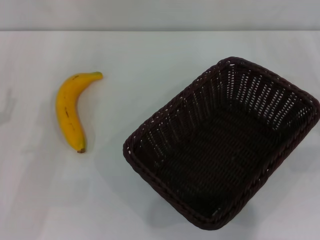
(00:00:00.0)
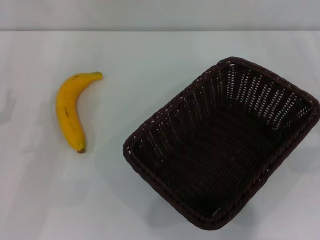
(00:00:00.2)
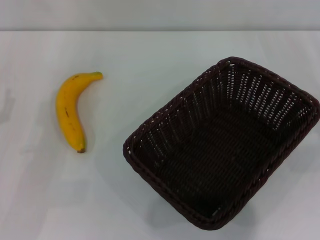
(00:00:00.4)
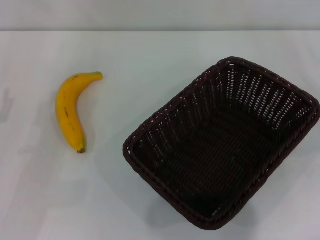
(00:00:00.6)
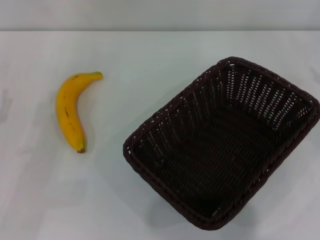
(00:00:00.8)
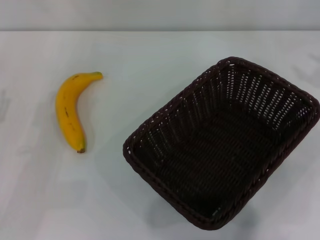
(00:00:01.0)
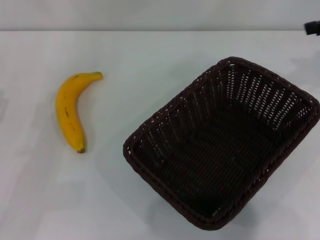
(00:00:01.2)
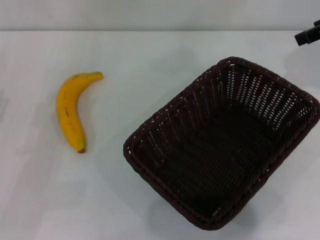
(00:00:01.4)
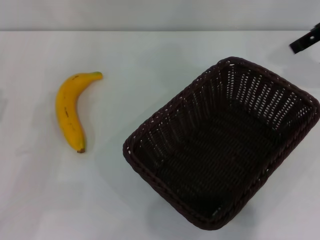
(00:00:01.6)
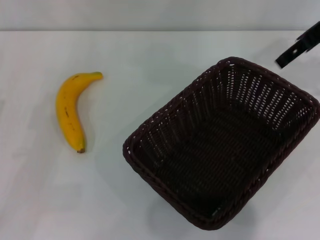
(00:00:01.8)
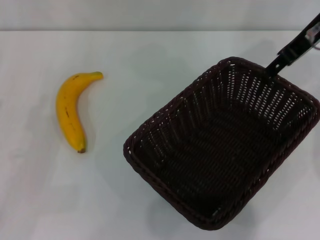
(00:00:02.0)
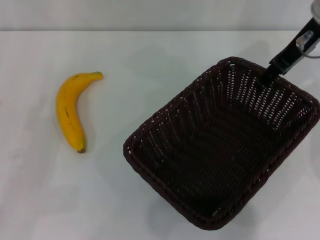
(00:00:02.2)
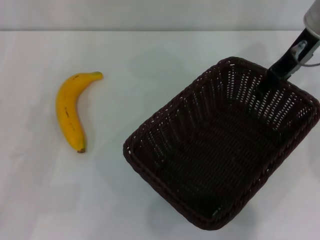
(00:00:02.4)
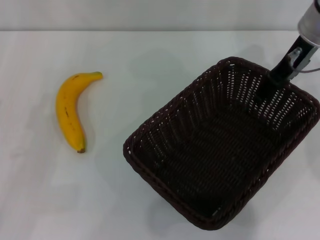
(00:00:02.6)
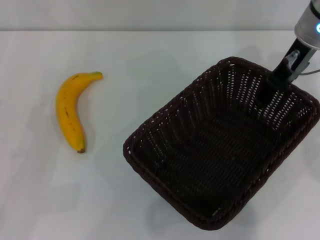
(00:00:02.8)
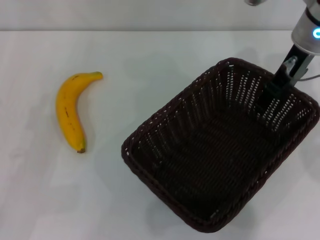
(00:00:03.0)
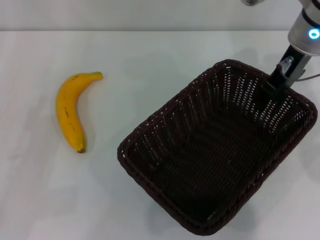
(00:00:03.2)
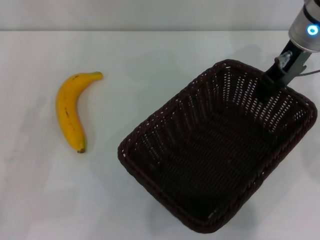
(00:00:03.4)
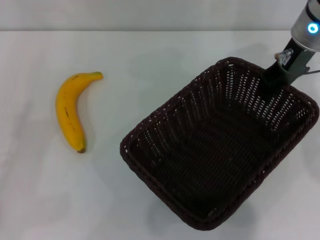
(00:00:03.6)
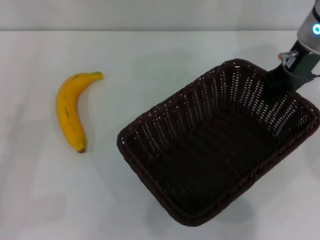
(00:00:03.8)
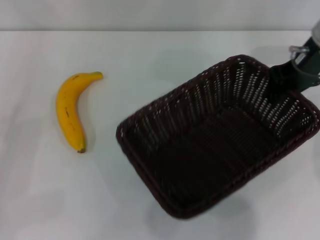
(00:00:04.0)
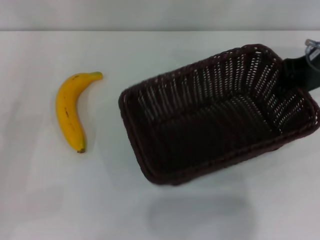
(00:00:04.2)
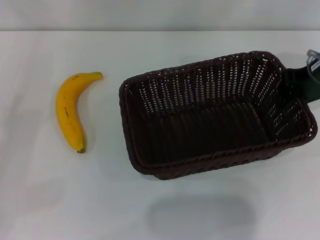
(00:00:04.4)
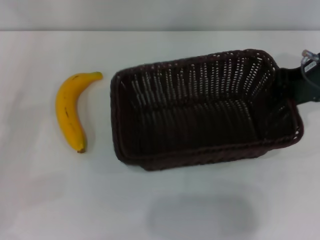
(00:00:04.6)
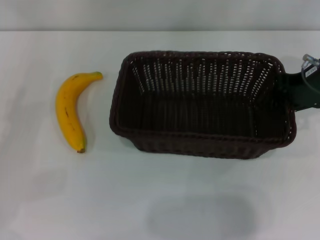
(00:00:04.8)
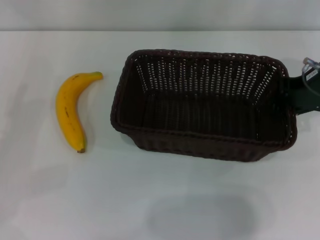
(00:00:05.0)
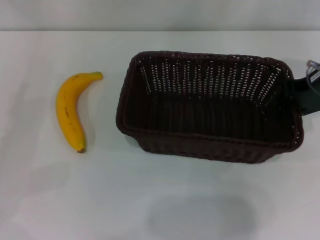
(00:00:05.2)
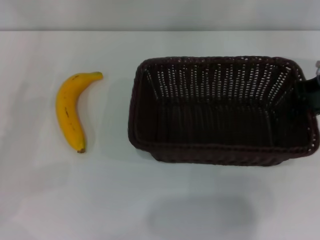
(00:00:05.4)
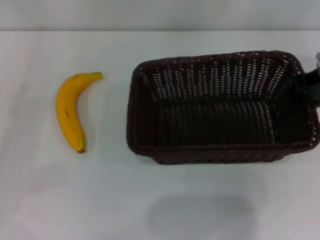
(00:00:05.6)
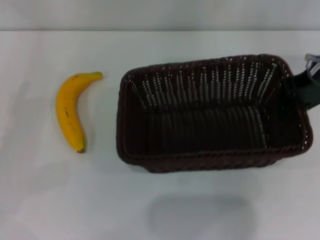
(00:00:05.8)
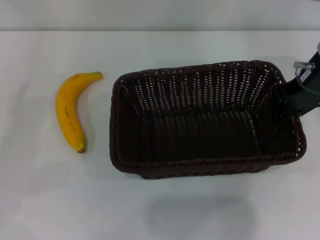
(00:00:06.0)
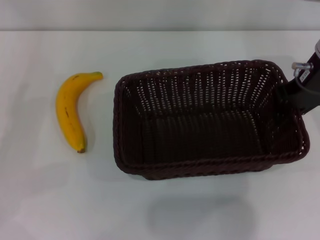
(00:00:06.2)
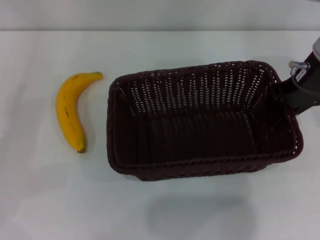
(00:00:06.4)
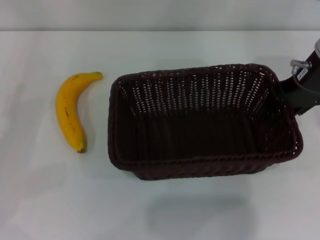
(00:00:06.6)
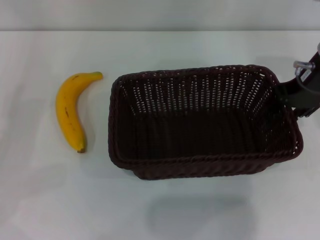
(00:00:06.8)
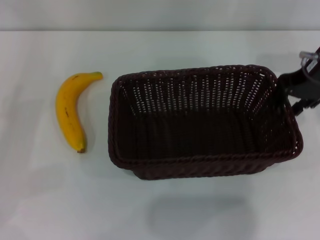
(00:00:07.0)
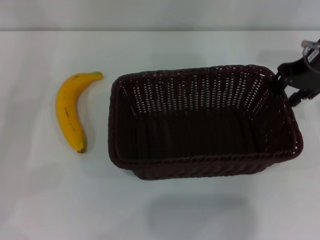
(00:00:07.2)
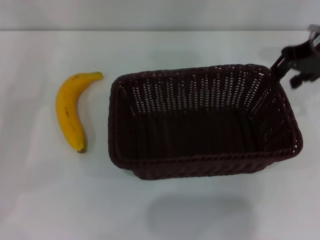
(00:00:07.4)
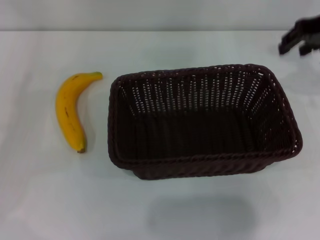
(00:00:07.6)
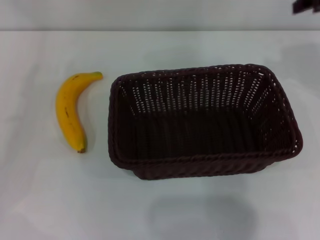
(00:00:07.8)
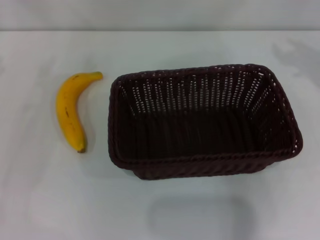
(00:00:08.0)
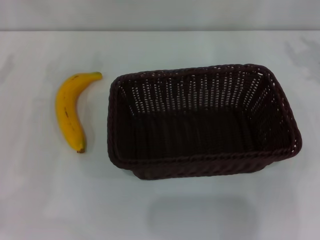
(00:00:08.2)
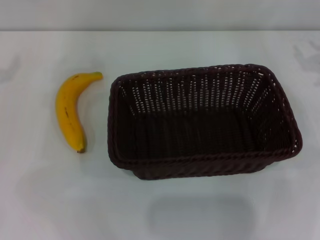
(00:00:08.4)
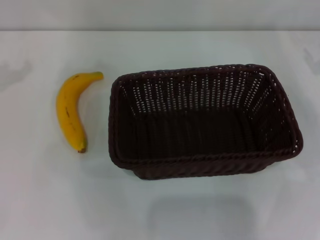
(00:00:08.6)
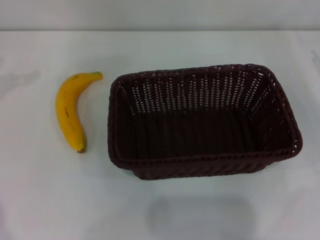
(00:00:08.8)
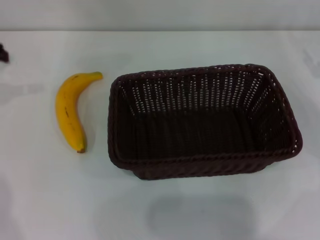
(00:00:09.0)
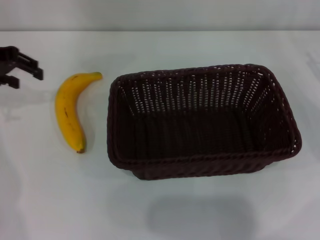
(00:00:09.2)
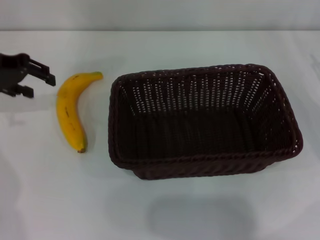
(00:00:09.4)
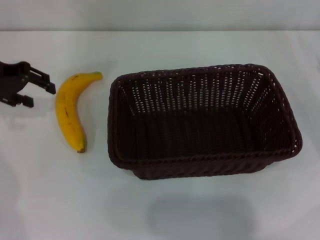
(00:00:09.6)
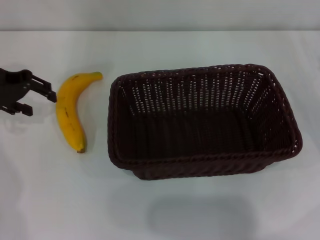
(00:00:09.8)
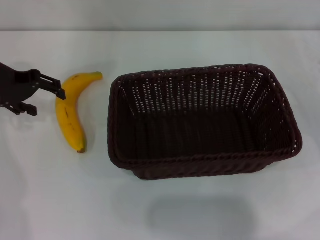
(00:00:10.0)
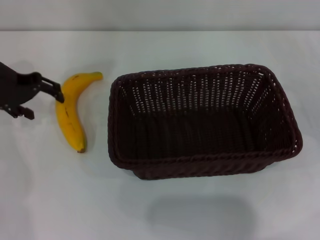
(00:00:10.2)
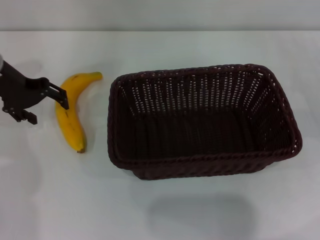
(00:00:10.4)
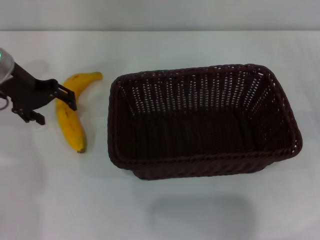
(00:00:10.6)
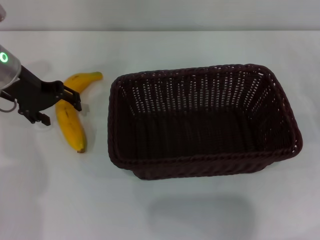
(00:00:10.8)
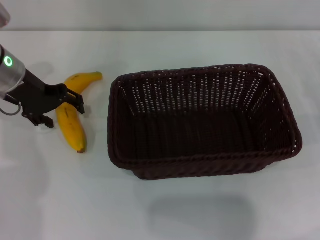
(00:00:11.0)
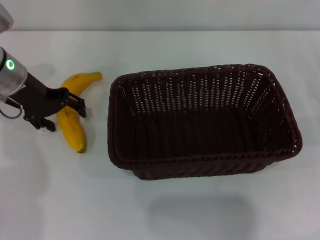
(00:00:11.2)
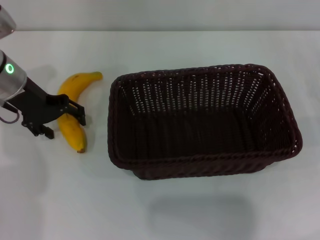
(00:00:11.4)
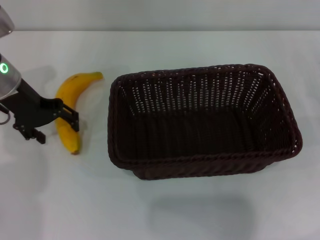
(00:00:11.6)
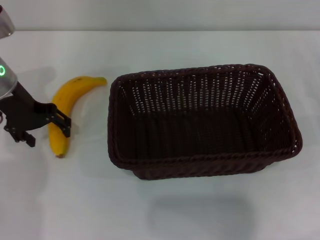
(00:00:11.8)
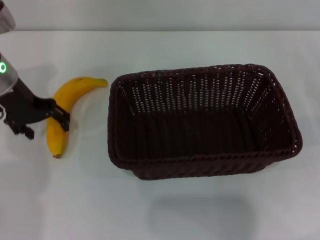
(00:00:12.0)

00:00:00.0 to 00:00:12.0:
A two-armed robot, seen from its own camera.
Step, 00:00:00.0 to 00:00:04.0: Pick up the dark basket with the right gripper.
Step, 00:00:04.2 to 00:00:06.8: Place the dark basket in the center of view with the right gripper.
00:00:00.0 to 00:00:01.6: The right gripper is displaced upward, forward and to the left by roughly 30 cm.
00:00:01.6 to 00:00:03.0: The right gripper moves to the left and downward, some 10 cm.
00:00:03.0 to 00:00:04.4: The right gripper goes about 5 cm to the right, and closes its fingers. The left gripper goes about 5 cm to the left.
00:00:04.4 to 00:00:06.0: There are only small adjustments of the grippers.
00:00:06.0 to 00:00:07.6: The right gripper is displaced upward by some 5 cm, and opens its fingers.
00:00:07.6 to 00:00:09.0: The right gripper heads downward and to the right, covering approximately 20 cm.
00:00:09.0 to 00:00:10.4: The left gripper shifts approximately 10 cm downward and to the right, and opens.
00:00:10.4 to 00:00:12.0: There are only small adjustments of the grippers.

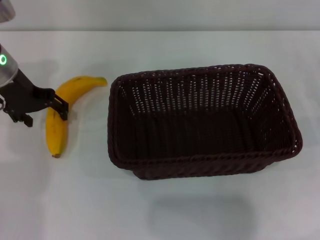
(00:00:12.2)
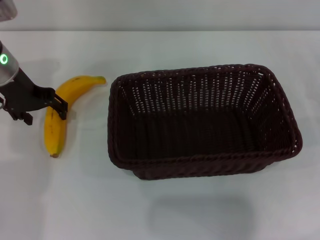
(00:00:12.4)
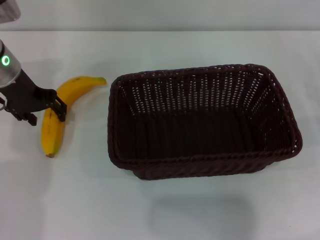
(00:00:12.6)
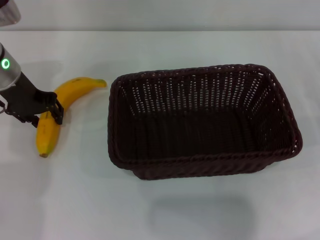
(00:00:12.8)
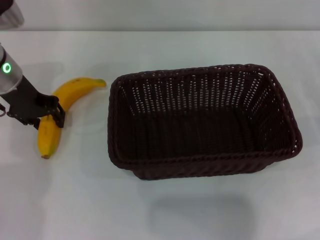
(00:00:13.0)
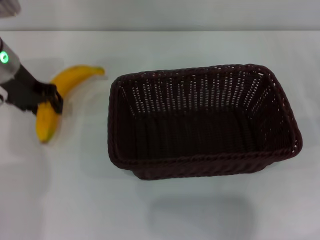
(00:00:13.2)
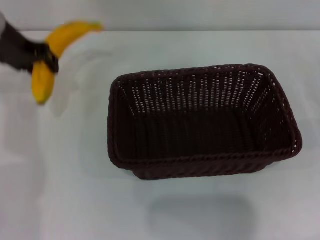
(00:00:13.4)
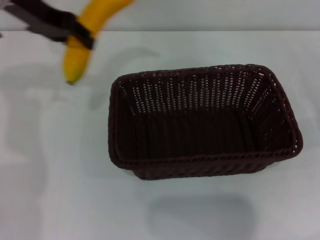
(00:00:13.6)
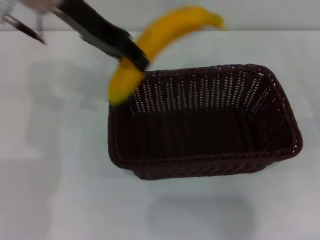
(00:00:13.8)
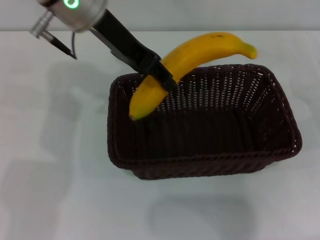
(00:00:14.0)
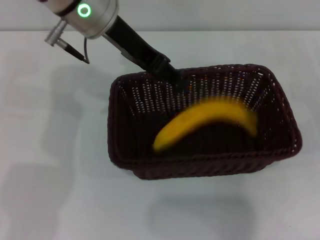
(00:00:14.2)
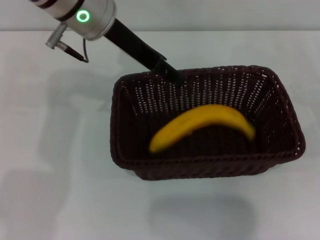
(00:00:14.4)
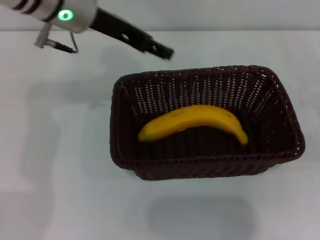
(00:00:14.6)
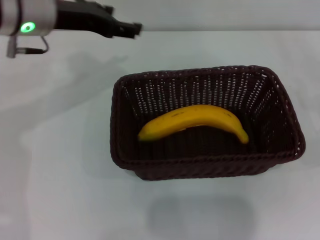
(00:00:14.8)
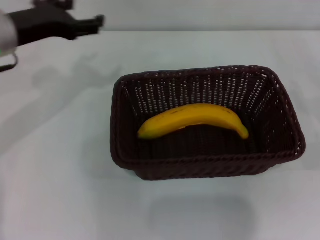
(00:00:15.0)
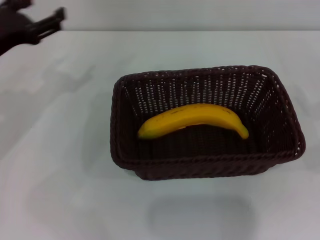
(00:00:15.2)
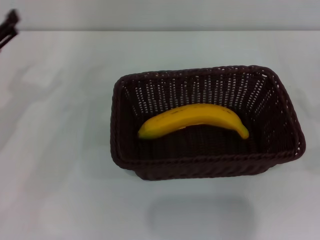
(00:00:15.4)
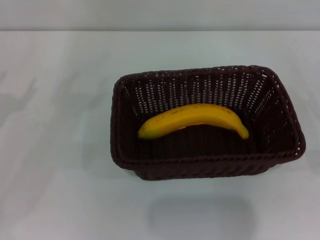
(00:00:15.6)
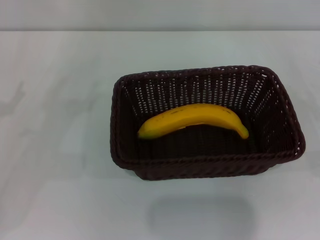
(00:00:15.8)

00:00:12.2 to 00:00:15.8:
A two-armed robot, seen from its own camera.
Step, 00:00:13.4 to 00:00:14.2: Place the banana into the dark basket with the left gripper.
00:00:12.2 to 00:00:14.0: The left gripper travels to the right and upward by approximately 15 cm, and closes its fingers.
00:00:14.0 to 00:00:15.8: The left gripper shifts about 35 cm to the left, downward and backward, and opens. Meanwhile the right gripper moves backward, roughly 5 cm, and opens up.
